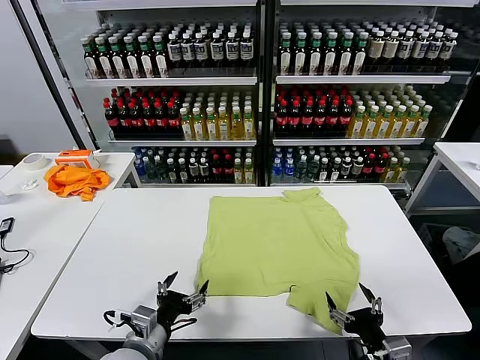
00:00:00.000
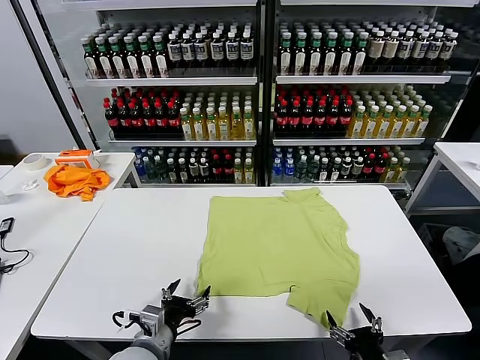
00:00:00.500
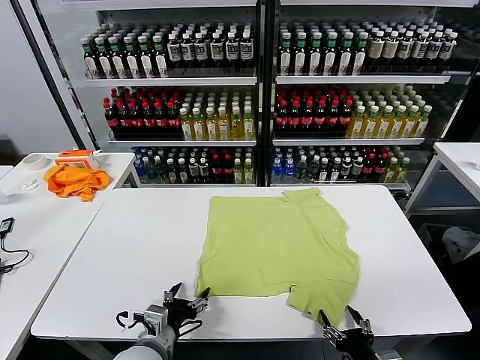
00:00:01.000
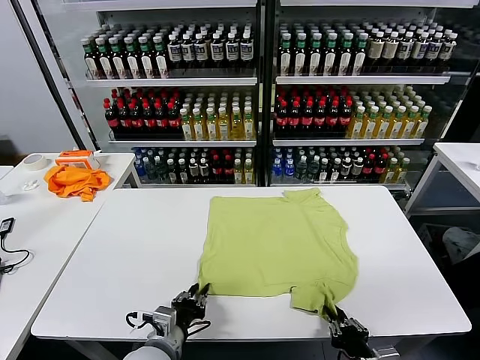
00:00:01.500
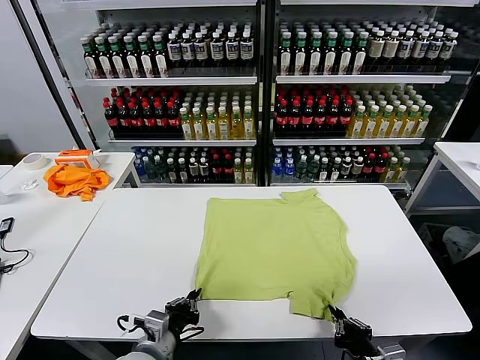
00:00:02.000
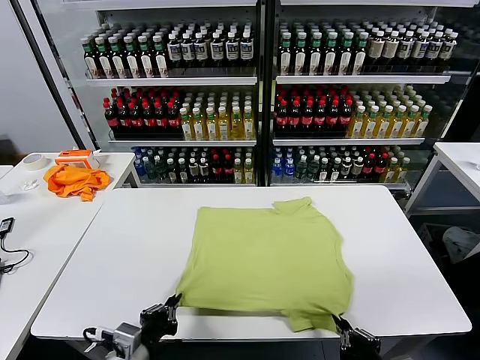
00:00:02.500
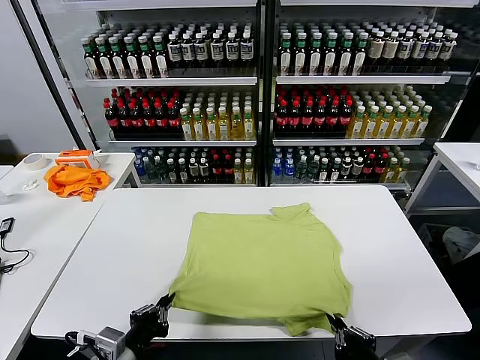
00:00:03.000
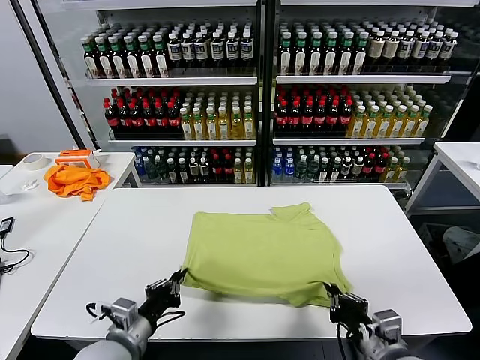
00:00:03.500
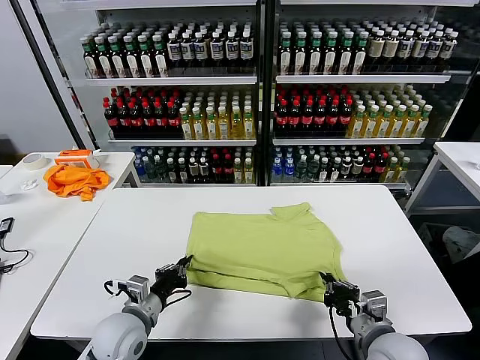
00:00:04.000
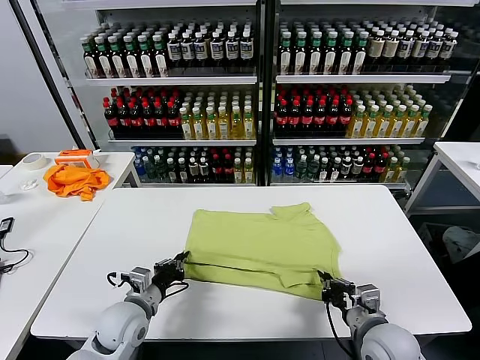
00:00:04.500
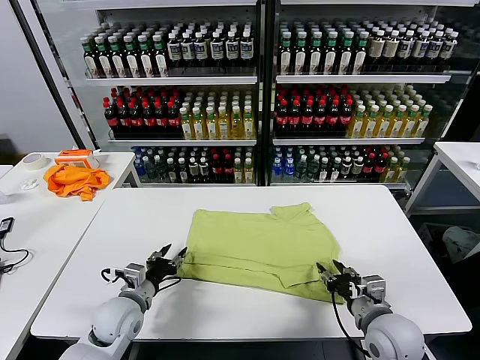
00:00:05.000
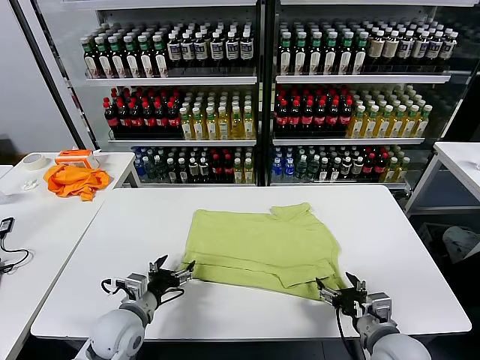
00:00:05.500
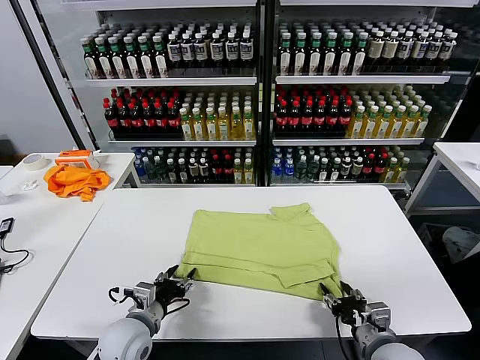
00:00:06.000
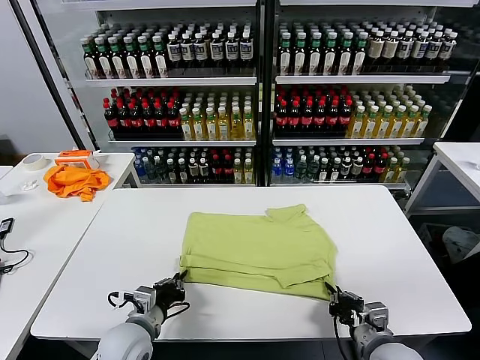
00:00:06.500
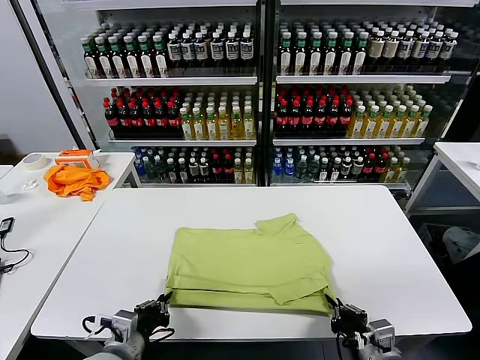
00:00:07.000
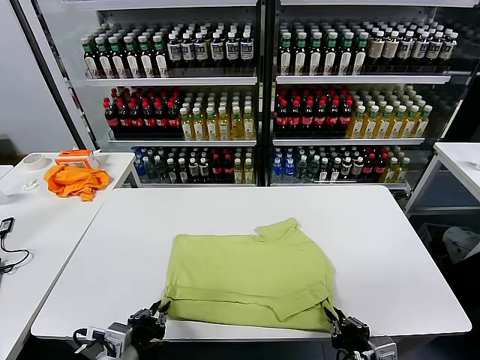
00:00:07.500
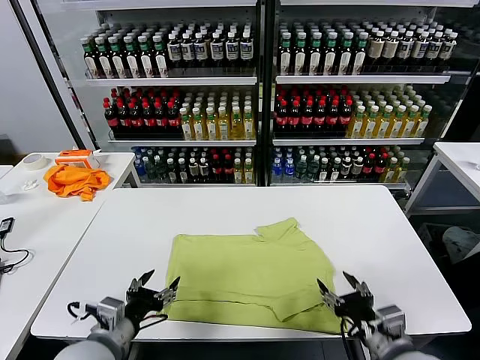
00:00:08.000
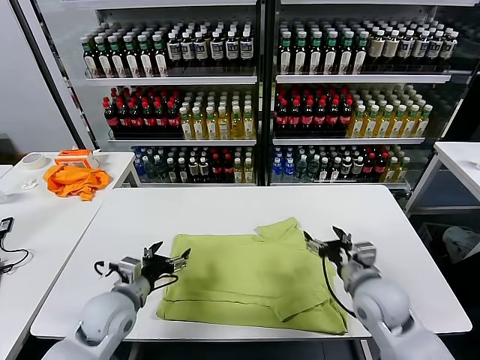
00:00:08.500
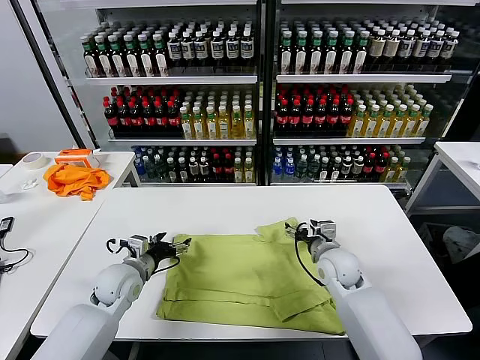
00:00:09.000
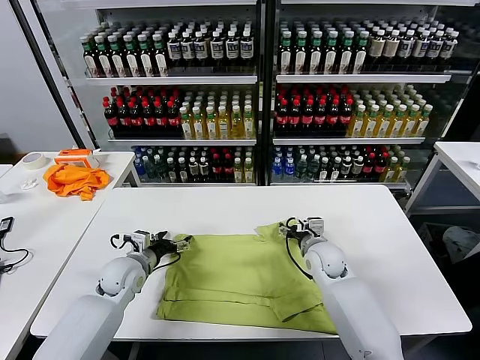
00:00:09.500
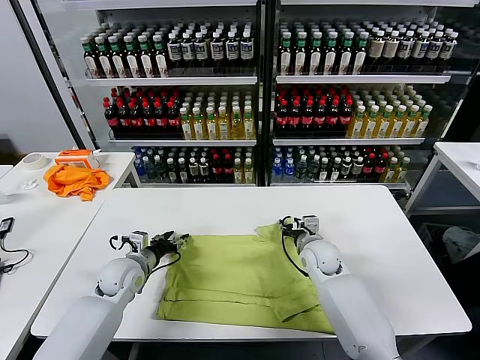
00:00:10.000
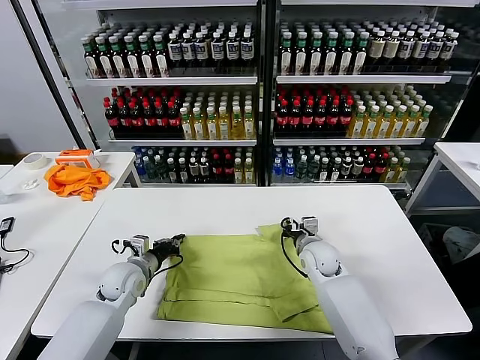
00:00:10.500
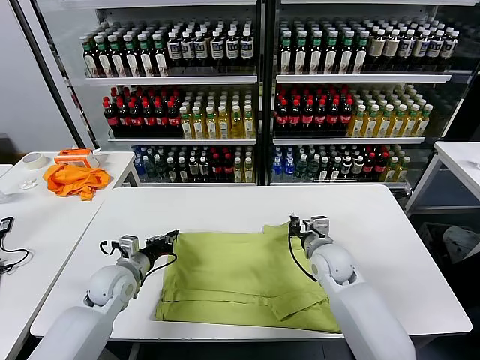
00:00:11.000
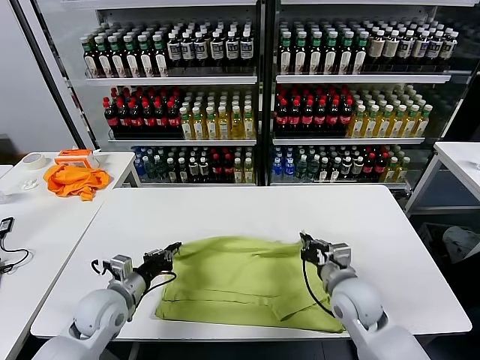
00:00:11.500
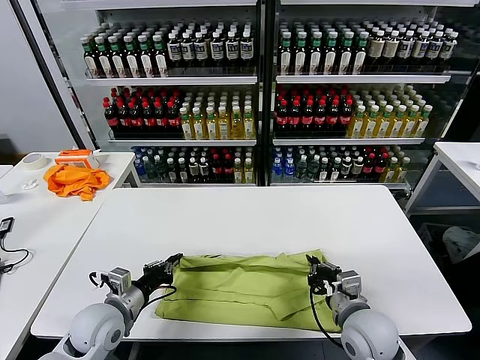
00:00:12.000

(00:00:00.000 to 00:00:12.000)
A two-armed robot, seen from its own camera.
Task of the whole recording: fold and organize the clothes.
Step, 00:00:00.000 - 00:00:01.500: use both grippers simultaneously to clamp the lower edge of the clothing fabric.
Step, 00:00:02.000 - 00:00:04.500: use both grippers to drag the lower edge of the fabric forward and fold it over the upper edge.
Step, 00:00:05.000 - 00:00:07.500: Drag the clothes downward with both gripper.
Step, 00:00:08.000 - 00:00:10.500: use both grippers simultaneously to clamp the upper edge of the clothing fabric.
00:00:02.000 - 00:00:04.000: Both grippers travel together forward, some 10 cm.
00:00:04.000 - 00:00:06.000: The left gripper opens. The right gripper opens its fingers.
00:00:06.000 - 00:00:08.000: The left gripper goes about 10 cm upward and backward, and closes and opens again, while the right gripper travels upward by roughly 10 cm, and opens its fingers.
00:00:08.000 - 00:00:10.000: The two grippers go roughly 25 cm forward. The right gripper closes up.
00:00:10.000 - 00:00:12.000: The left gripper heads backward, covering approximately 10 cm, and closes its fingers; the right gripper heads backward, covering about 20 cm, and closes up.

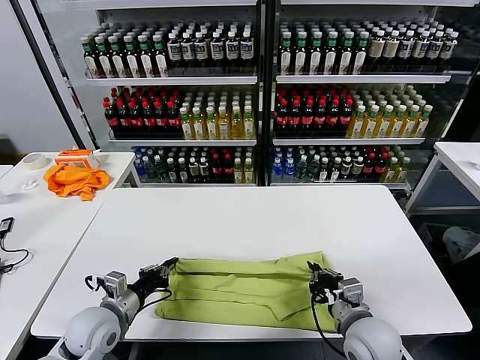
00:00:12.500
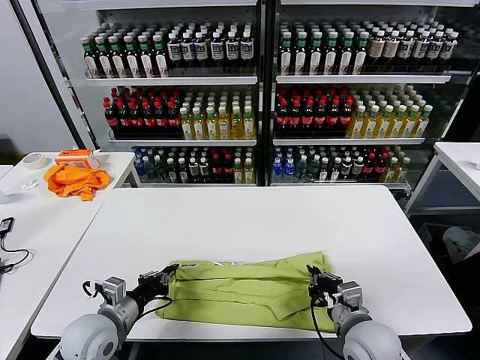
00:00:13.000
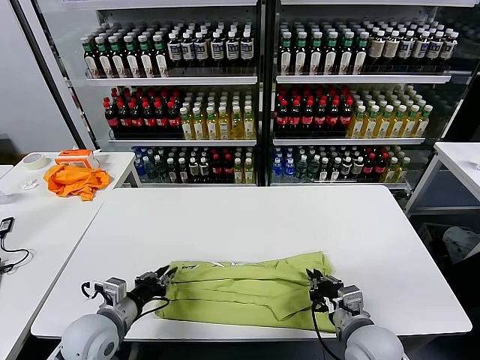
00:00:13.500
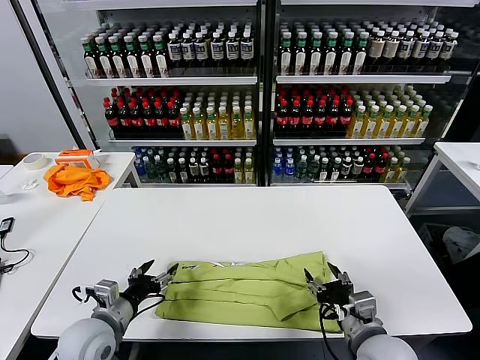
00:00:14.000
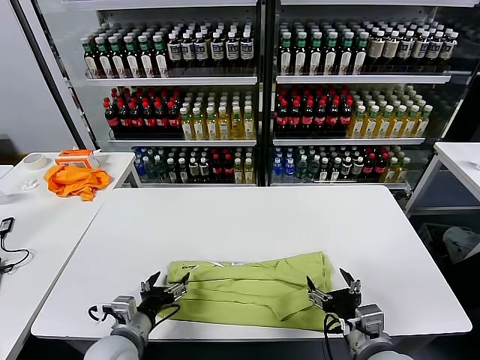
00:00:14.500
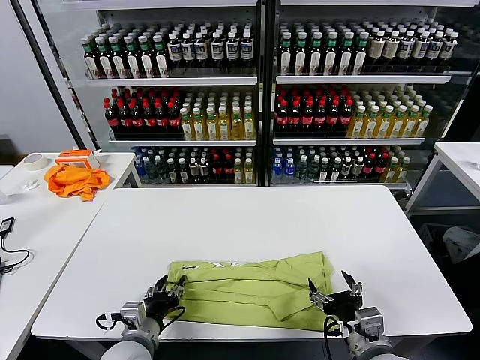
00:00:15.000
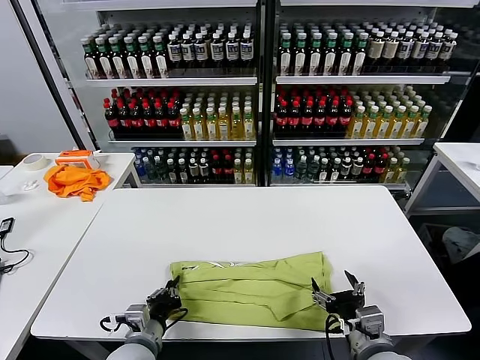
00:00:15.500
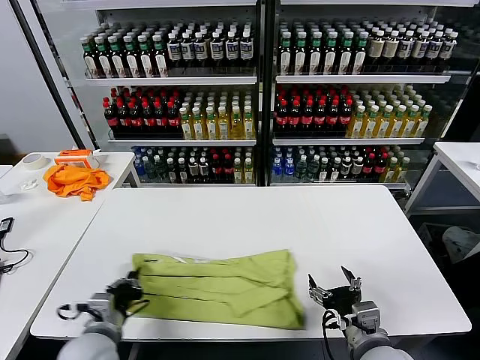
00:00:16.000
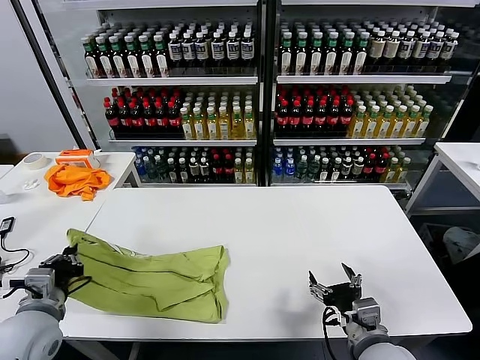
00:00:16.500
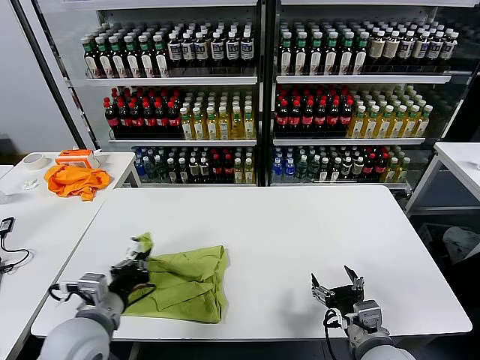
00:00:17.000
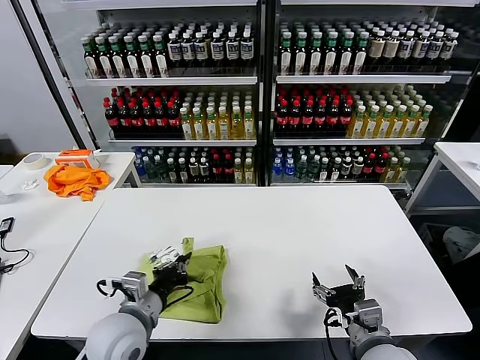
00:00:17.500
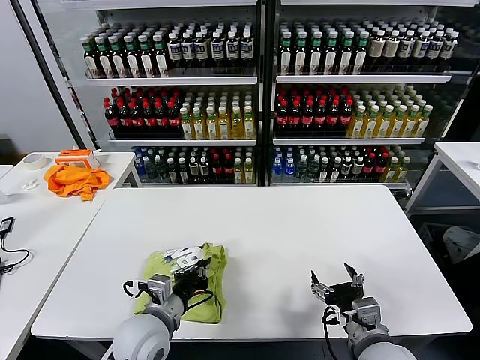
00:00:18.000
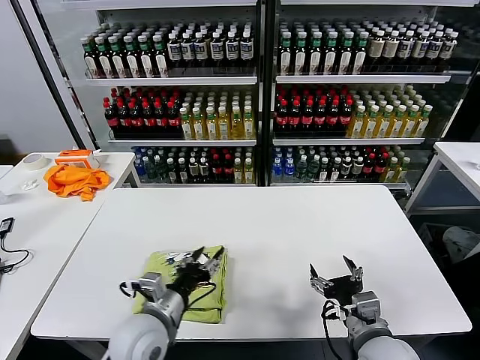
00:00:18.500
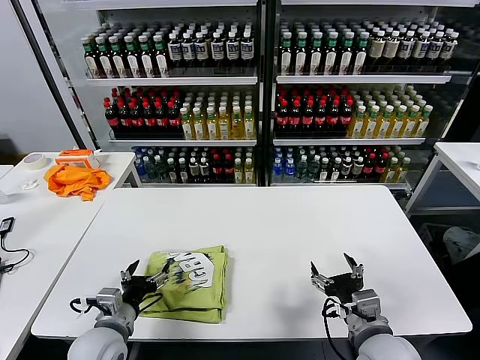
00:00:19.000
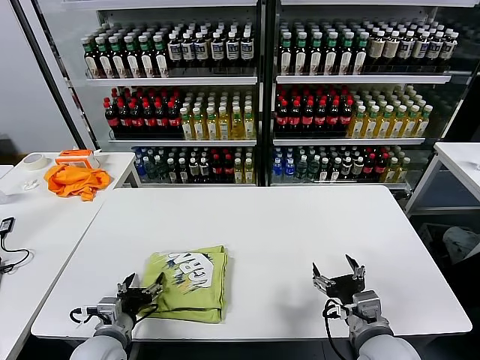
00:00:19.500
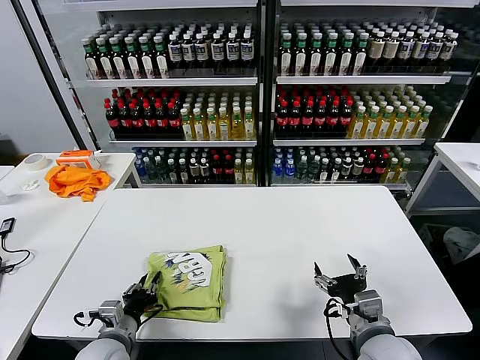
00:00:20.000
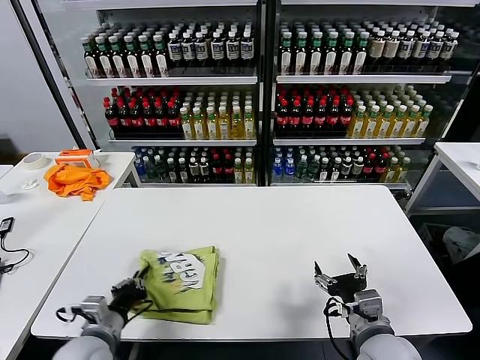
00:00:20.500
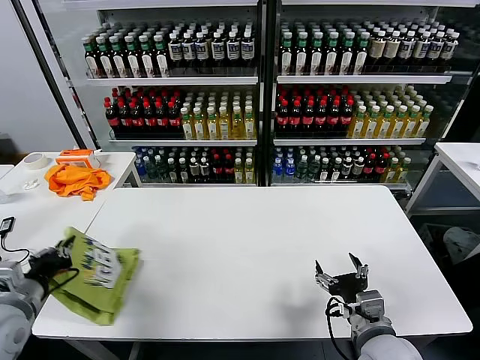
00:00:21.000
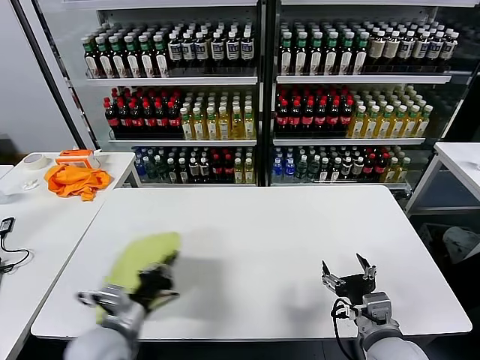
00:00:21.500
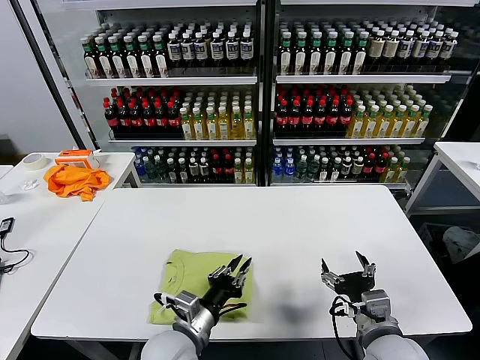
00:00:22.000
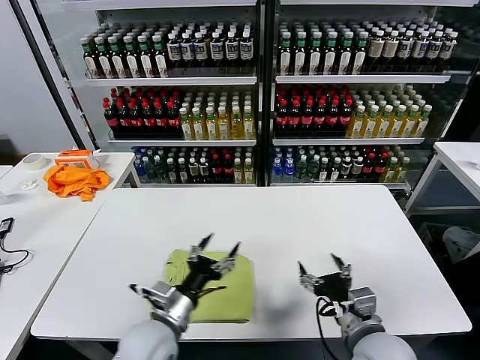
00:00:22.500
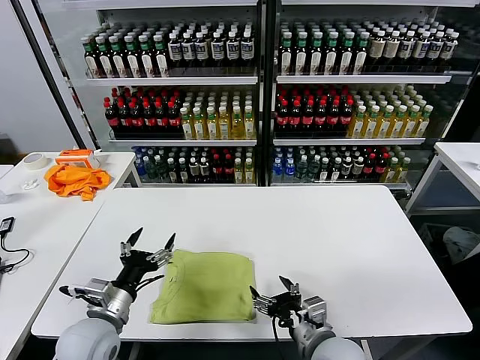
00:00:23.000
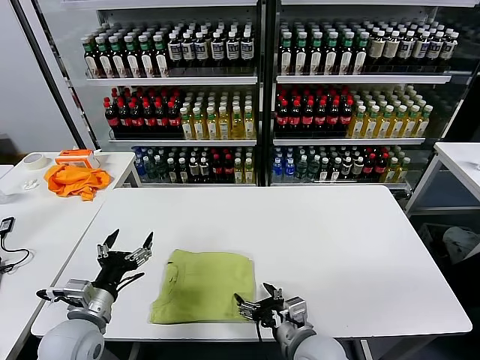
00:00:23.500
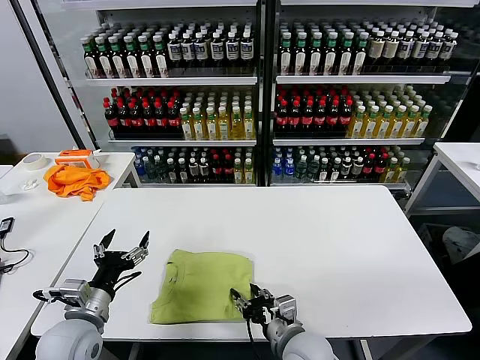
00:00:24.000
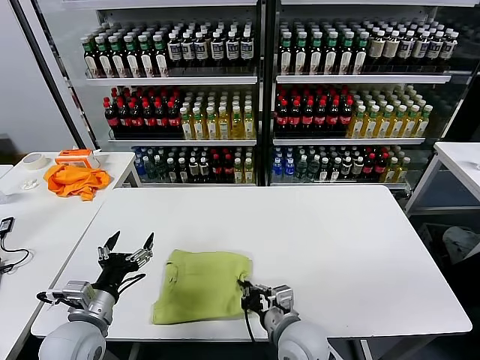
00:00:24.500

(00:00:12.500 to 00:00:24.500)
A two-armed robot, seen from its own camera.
Task of the whole recording: fold and organize the clothes.
Step, 00:00:14.000 - 00:00:15.500: use the left gripper to clamp the left edge of the fabric.
Step, 00:00:16.000 - 00:00:18.500: use the left gripper to drag the left edge of the fabric to the left and folds it over the right edge.
Step, 00:00:19.000 - 00:00:22.000: Flip the folded clothes over with left gripper.
00:00:12.500 - 00:00:14.500: The left gripper is displaced to the right and backward by roughly 5 cm, and opens, while the right gripper is displaced backward by approximately 5 cm, and opens up.
00:00:14.500 - 00:00:16.500: The left gripper shifts some 15 cm to the left and upward, and closes.
00:00:16.500 - 00:00:18.500: The left gripper moves to the right, roughly 20 cm, and opens.
00:00:18.500 - 00:00:20.500: The left gripper shifts roughly 15 cm to the left and downward, and closes up.
00:00:20.500 - 00:00:22.500: The left gripper moves to the right, some 15 cm, and opens up.
00:00:22.500 - 00:00:24.500: The right gripper moves to the left and downward, roughly 15 cm, and closes. Meanwhile the left gripper shifts about 15 cm to the left.

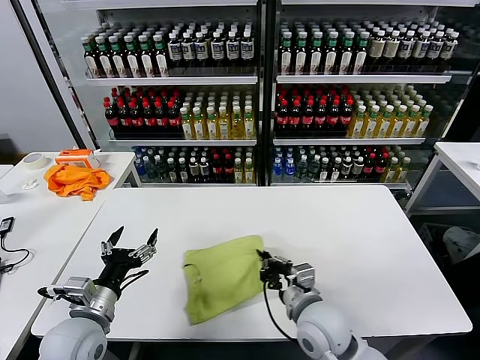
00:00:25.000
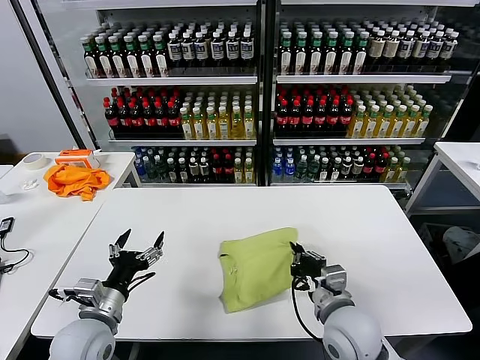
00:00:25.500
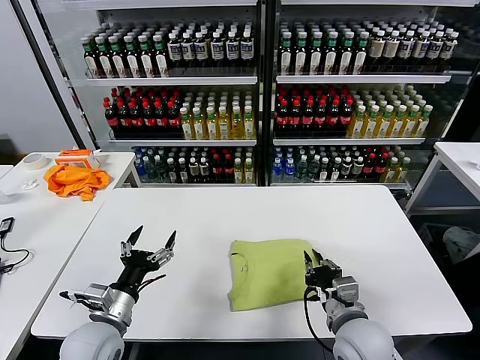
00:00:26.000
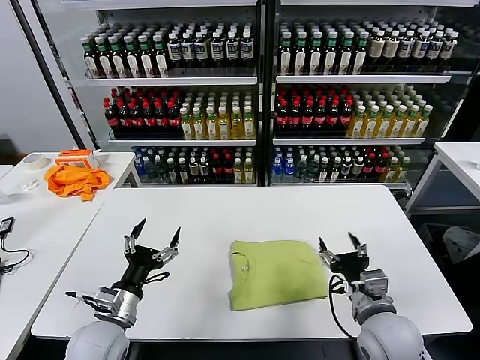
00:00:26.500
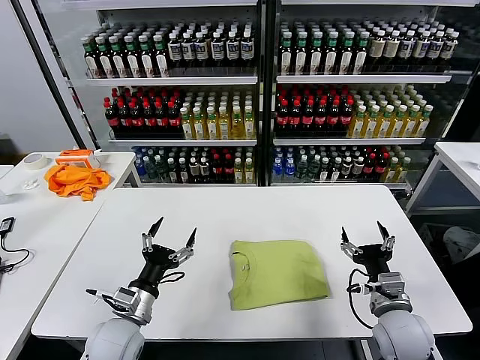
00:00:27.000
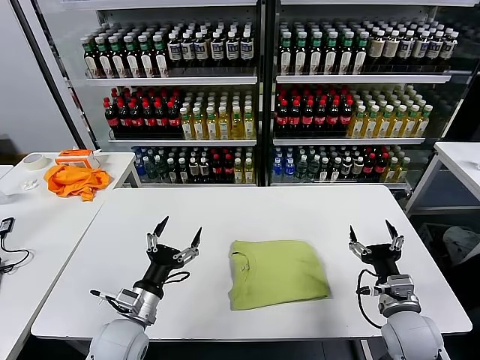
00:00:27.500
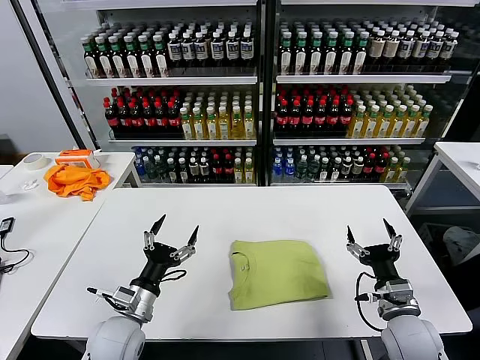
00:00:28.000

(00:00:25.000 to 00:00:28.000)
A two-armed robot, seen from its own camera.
Task of the whole recording: fold and organize the clothes.
00:00:25.000 - 00:00:26.500: The right gripper moves to the right, some 10 cm, and opens.
00:00:26.500 - 00:00:28.000: The right gripper is displaced to the right by some 5 cm.
